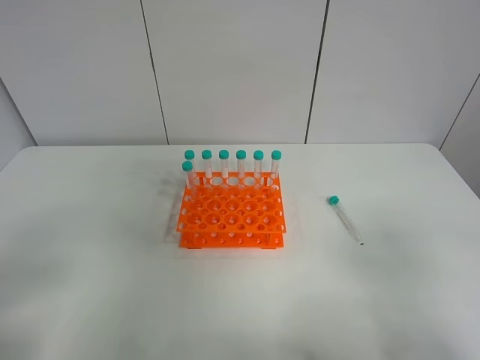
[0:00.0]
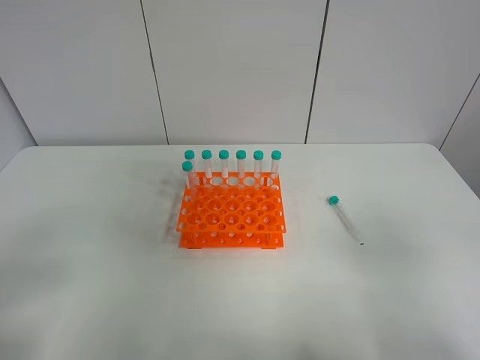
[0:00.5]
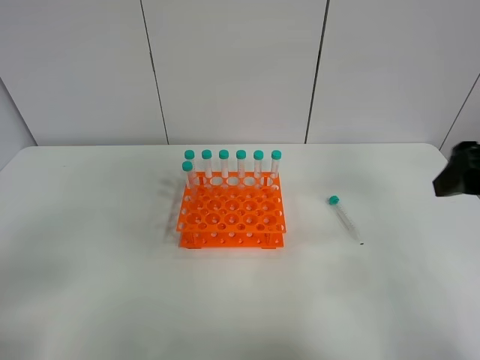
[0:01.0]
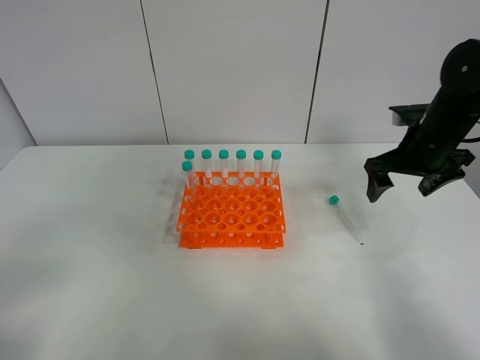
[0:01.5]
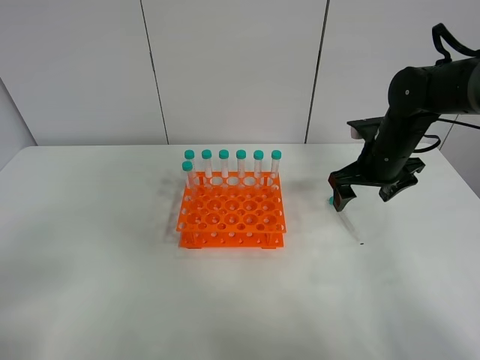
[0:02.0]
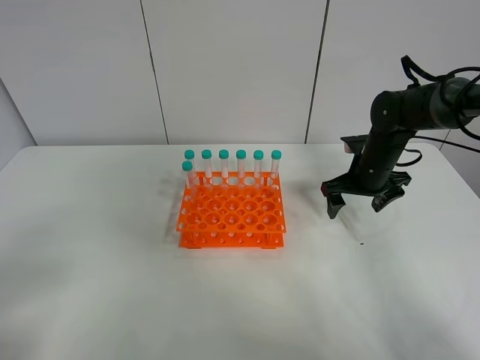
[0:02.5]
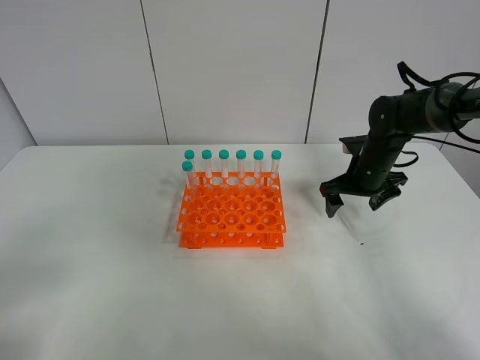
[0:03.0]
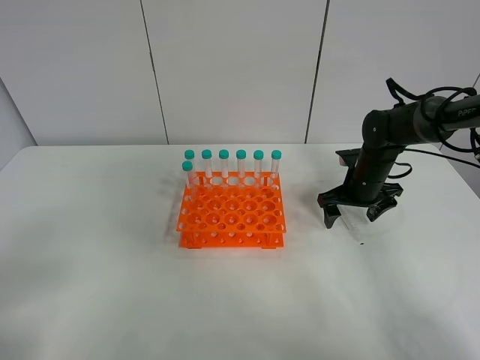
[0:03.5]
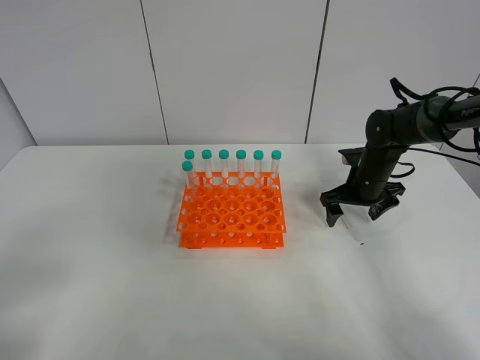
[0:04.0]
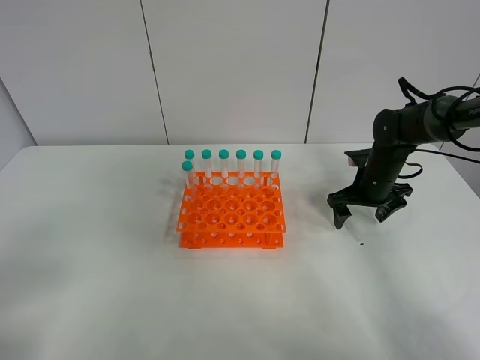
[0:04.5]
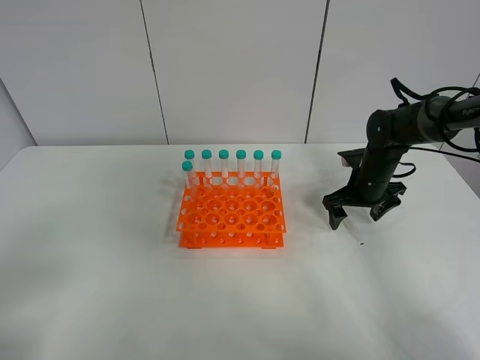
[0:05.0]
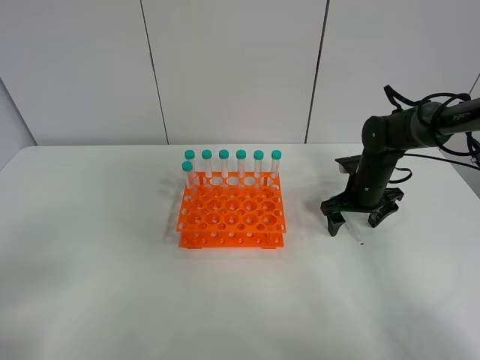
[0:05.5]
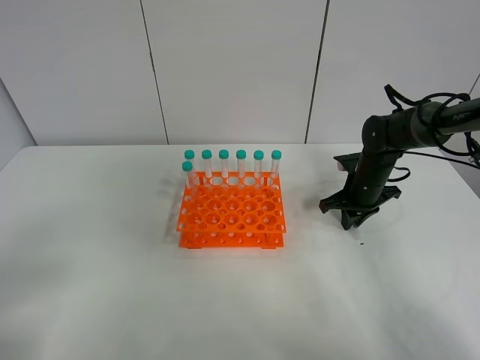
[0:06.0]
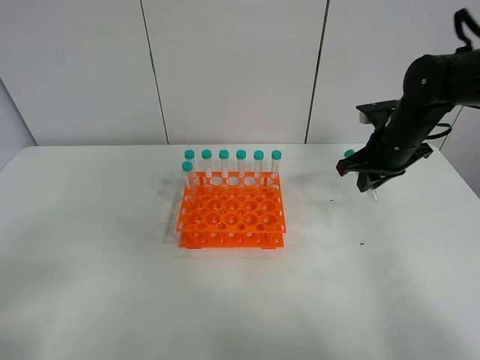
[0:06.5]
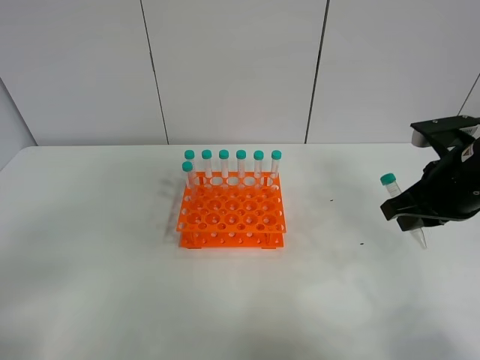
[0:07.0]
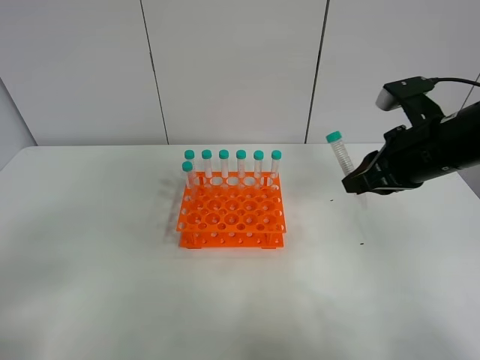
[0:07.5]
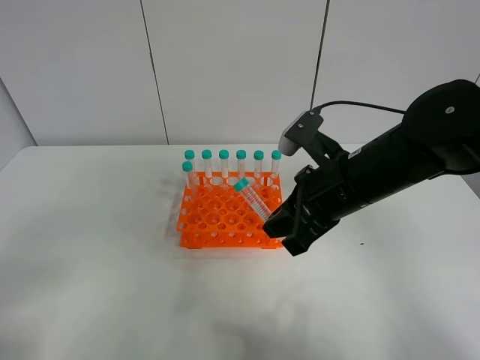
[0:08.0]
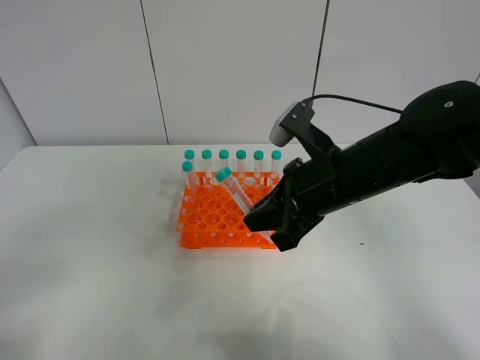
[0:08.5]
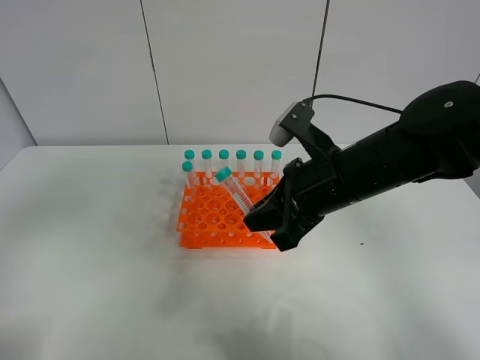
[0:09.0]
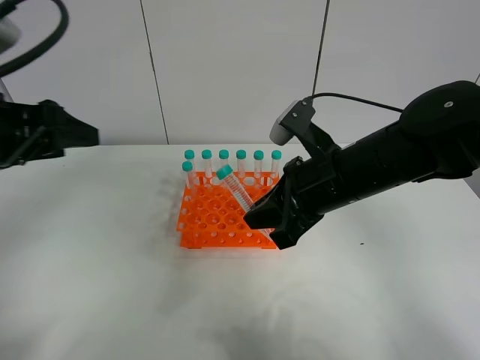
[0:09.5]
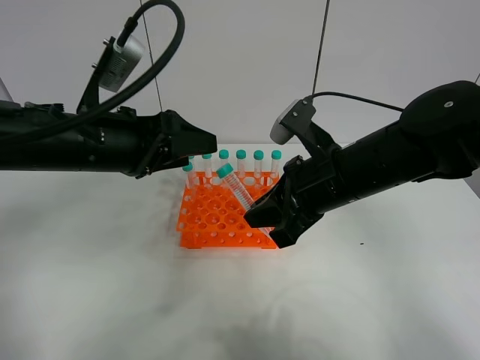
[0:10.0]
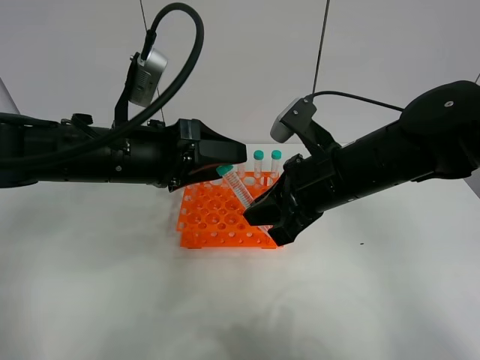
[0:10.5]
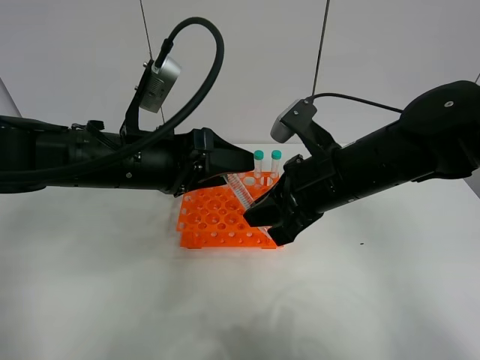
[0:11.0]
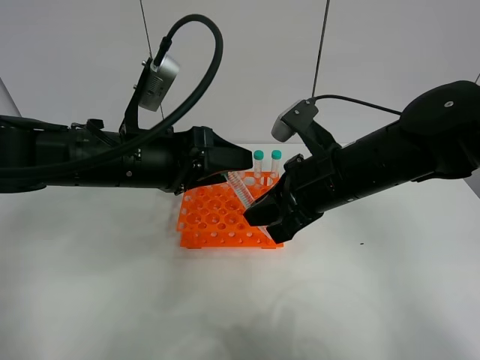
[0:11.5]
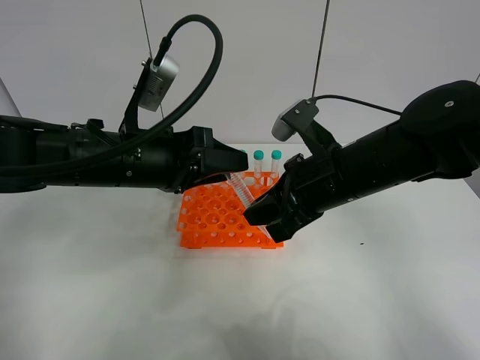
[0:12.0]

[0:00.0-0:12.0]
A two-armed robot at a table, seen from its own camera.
Task of the whole recording: Put the test tube on the table back onto the test tube rack.
Step, 0:00.0 to 0:06.0: Pick up the test tube with the right gripper.
0:00.0 to 0:02.0: The right gripper heads forward, covering about 35 cm.
0:02.0 to 0:04.0: The right gripper is displaced downward by about 10 cm.
0:04.0 to 0:06.0: The right gripper closes.
0:06.0 to 0:08.0: The right gripper moves backward, upward and to the left, some 25 cm.
0:08.0 to 0:10.0: The left gripper travels forward and to the right by roughly 30 cm.
0:10.0 to 0:12.0: The left gripper closes.

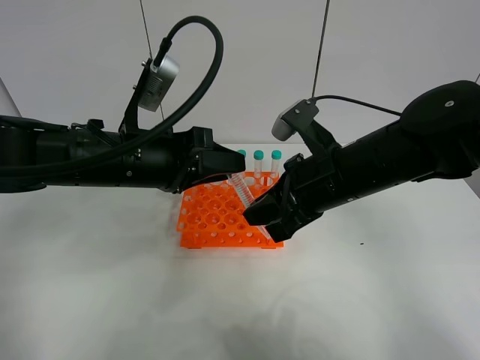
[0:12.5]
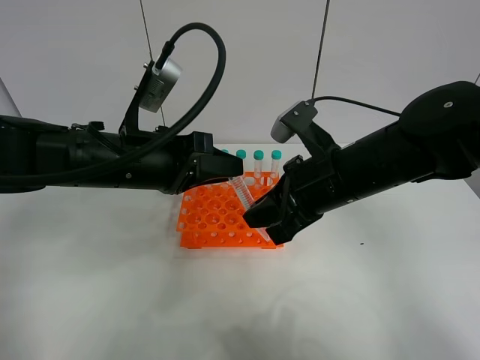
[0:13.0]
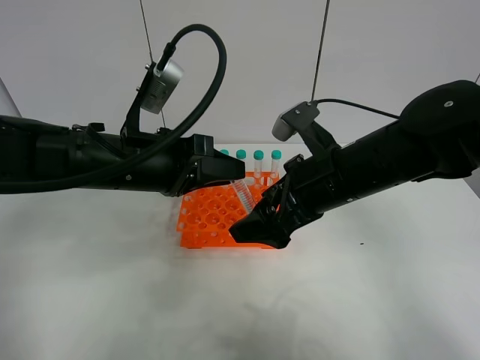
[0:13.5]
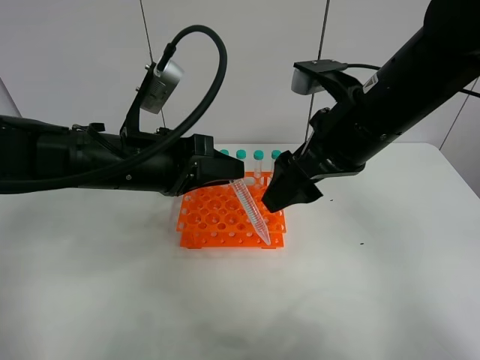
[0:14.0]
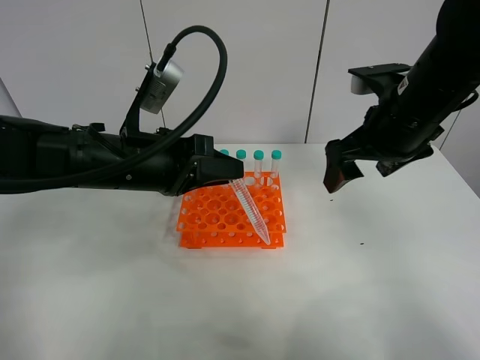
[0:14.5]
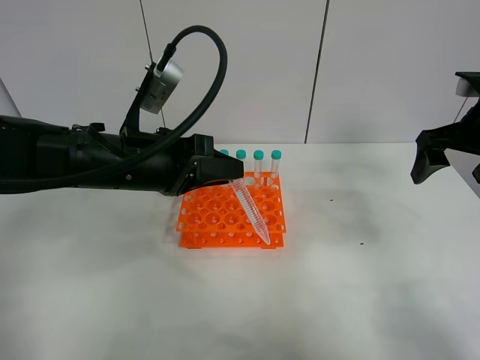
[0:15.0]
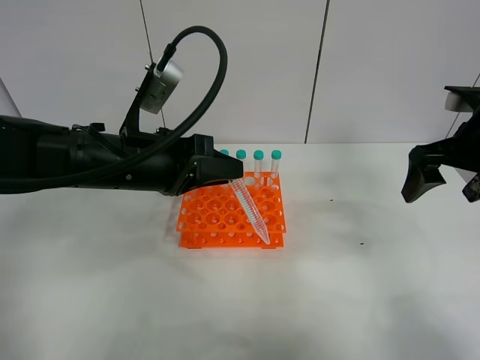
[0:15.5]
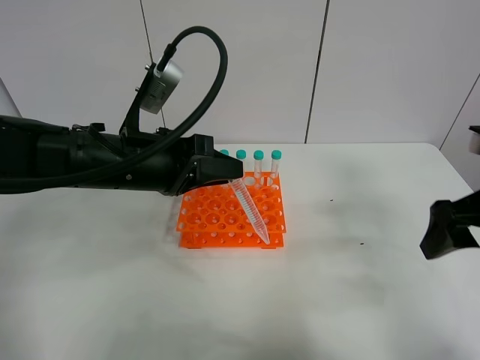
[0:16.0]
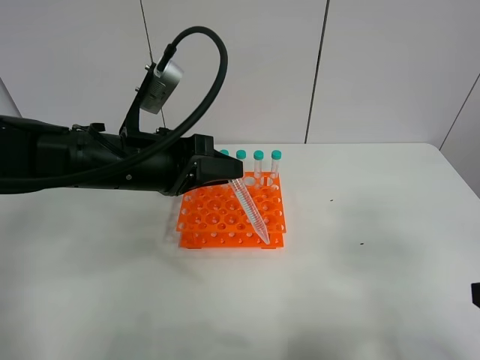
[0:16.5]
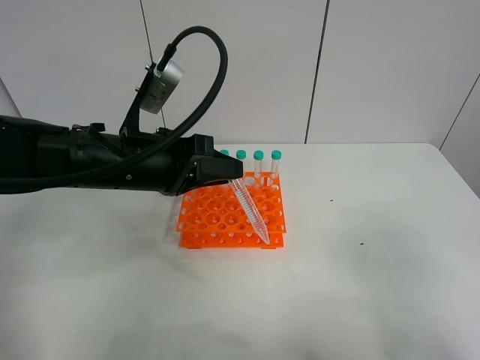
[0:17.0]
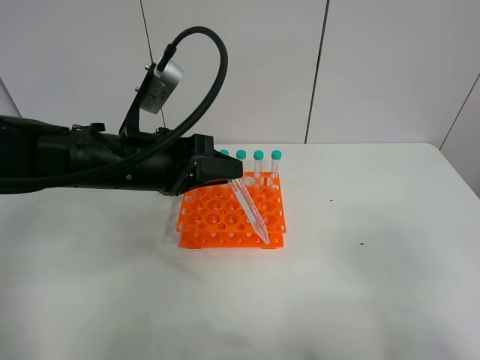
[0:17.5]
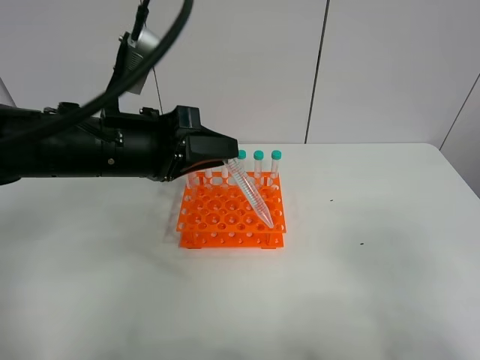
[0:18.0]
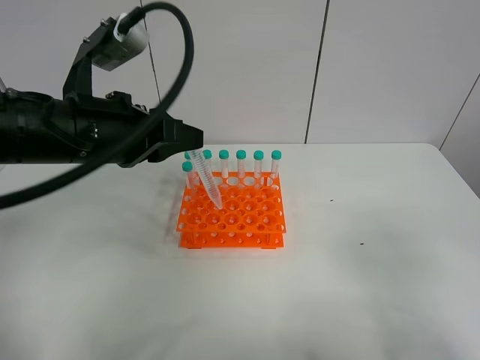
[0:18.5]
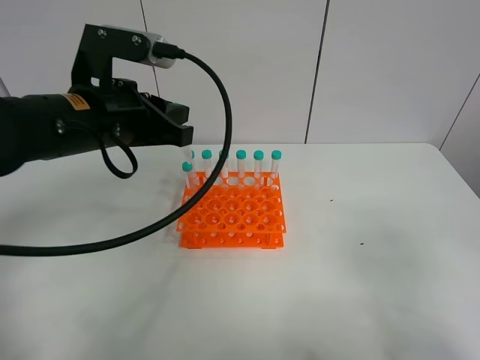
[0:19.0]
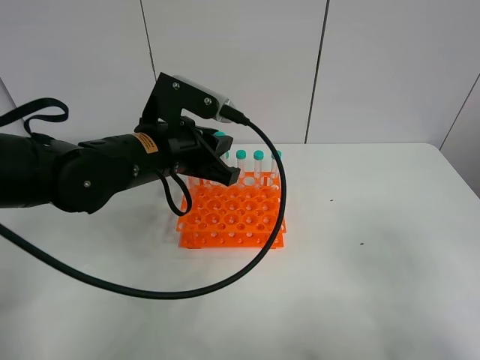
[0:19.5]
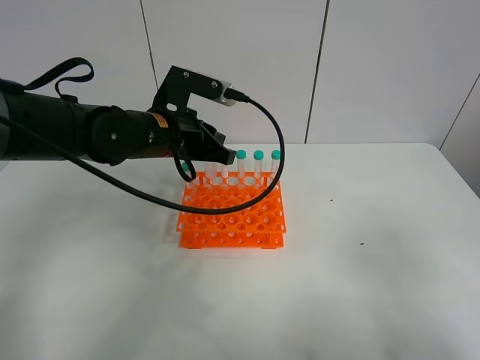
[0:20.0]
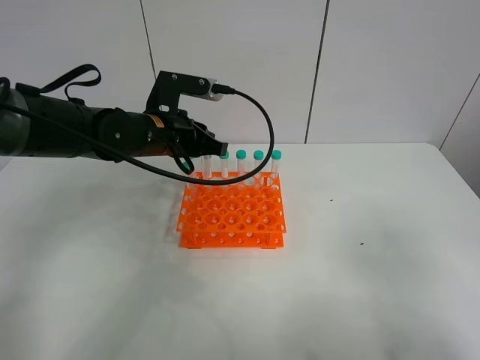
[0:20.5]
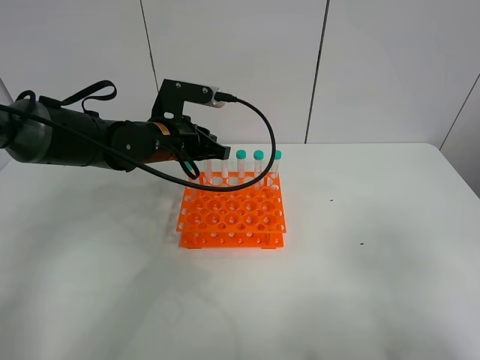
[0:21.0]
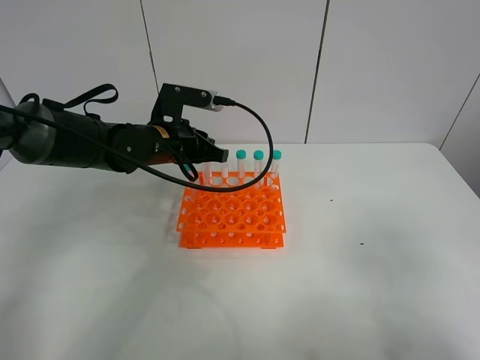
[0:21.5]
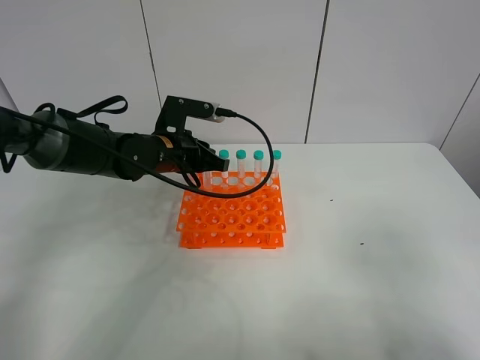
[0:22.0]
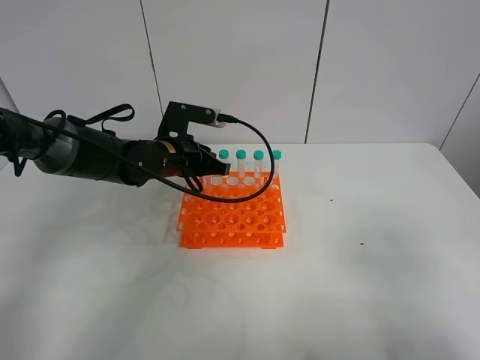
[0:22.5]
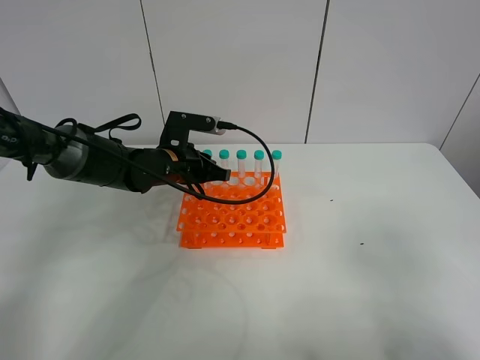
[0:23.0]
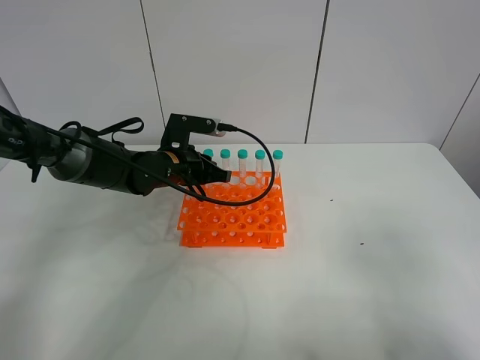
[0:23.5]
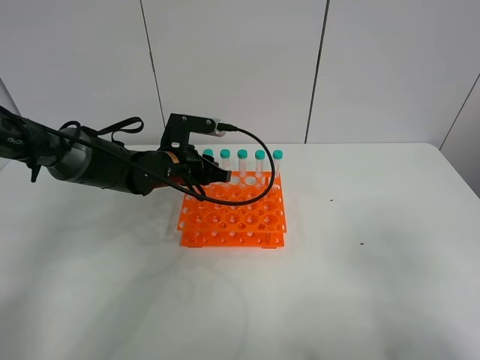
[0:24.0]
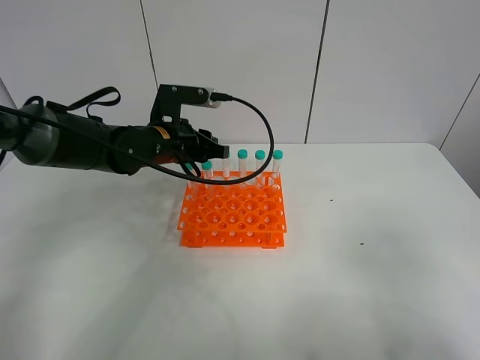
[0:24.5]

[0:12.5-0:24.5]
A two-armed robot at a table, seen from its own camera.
Task of the whole recording: Put the test tube on the table back onto the test tube rack.
Step, 0:13.5 to 0:24.0: Place the test tube on the test tube rack with the left gripper.
0:12.5 to 0:14.5: The right gripper heads to the right, upward and forward, covering roughly 10 cm, and opens.
0:14.5 to 0:16.5: The right gripper is displaced backward by approximately 25 cm.
0:16.5 to 0:18.5: The left gripper heads upward, covering approximately 5 cm.
0:18.5 to 0:20.5: The left gripper goes approximately 15 cm forward and downward.
0:20.5 to 0:22.5: The left gripper moves downward, some 5 cm.
0:22.5 to 0:24.5: The left gripper opens up.

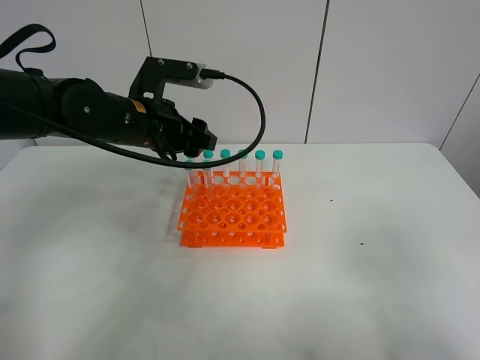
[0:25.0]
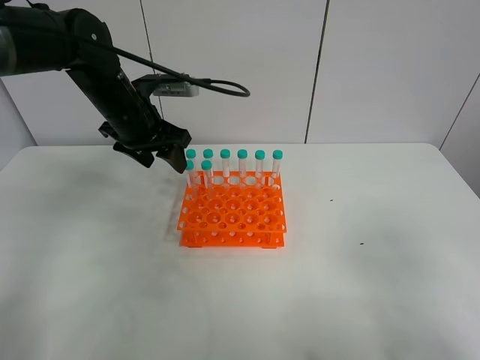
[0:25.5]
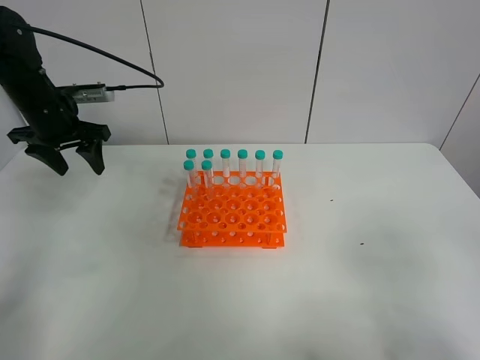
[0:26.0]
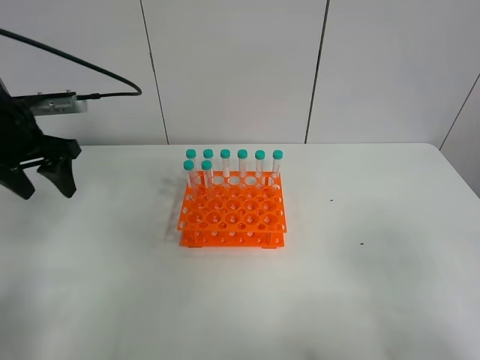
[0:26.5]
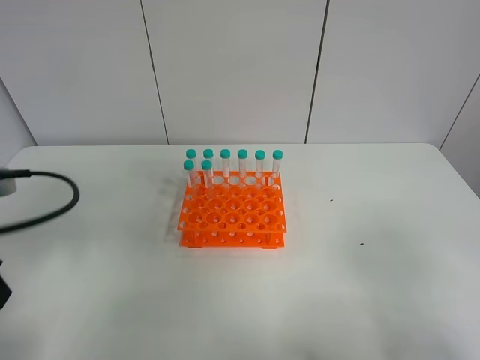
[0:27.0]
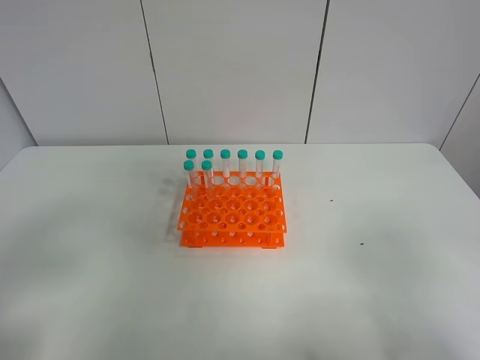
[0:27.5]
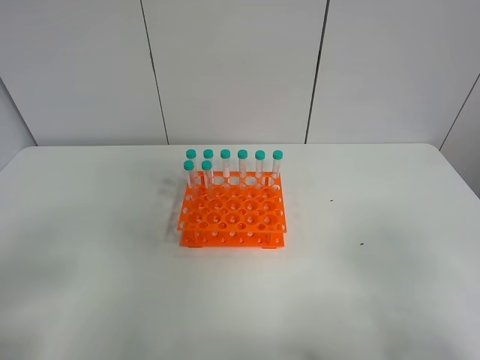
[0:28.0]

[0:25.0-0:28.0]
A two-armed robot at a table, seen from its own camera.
Task of the whole recording: Put the test tube on the table back onto the test tube rack.
0:25.0 to 0:26.5: The left gripper moves to the left, about 15 cm.
0:26.5 to 0:28.0: The left gripper travels backward by roughly 30 cm.
